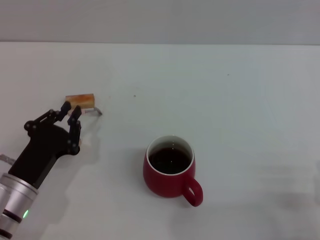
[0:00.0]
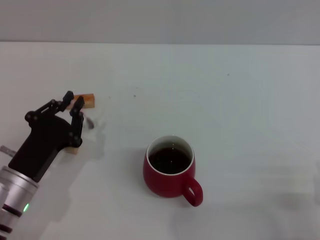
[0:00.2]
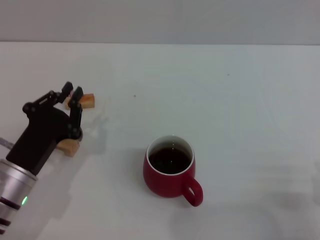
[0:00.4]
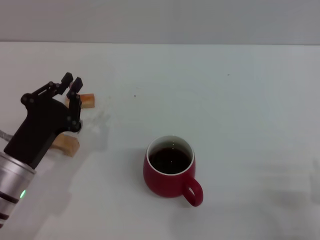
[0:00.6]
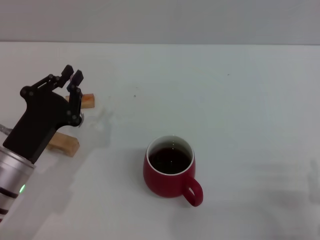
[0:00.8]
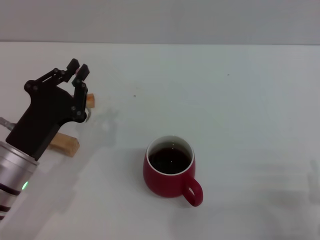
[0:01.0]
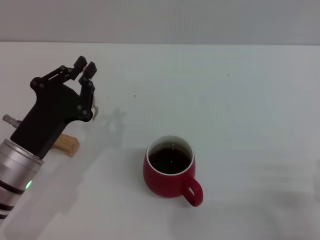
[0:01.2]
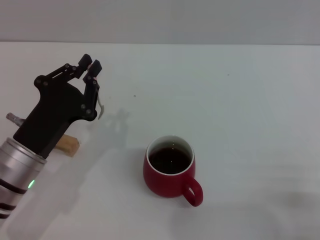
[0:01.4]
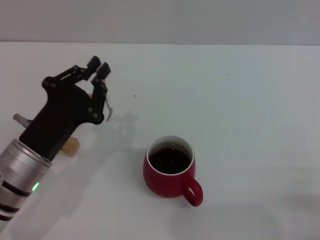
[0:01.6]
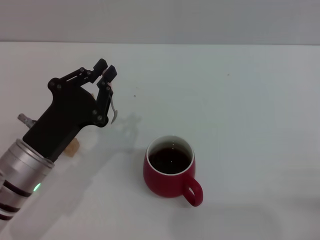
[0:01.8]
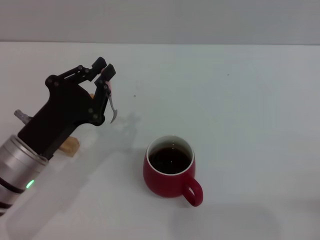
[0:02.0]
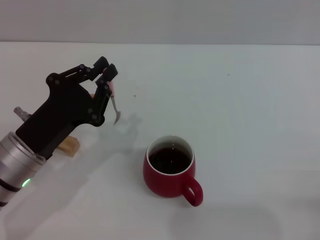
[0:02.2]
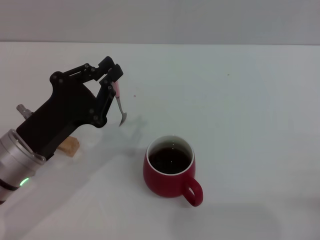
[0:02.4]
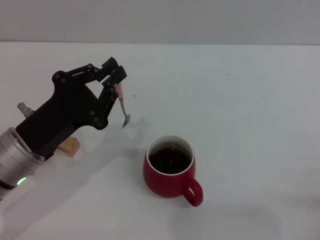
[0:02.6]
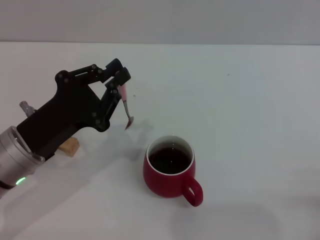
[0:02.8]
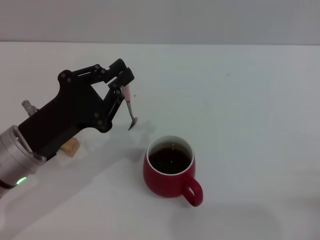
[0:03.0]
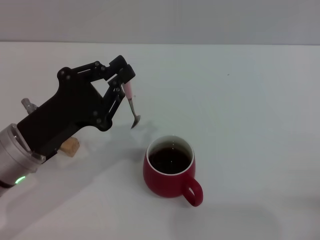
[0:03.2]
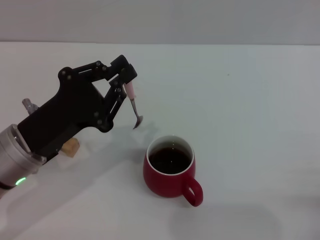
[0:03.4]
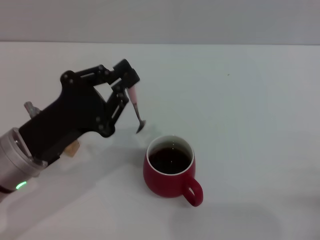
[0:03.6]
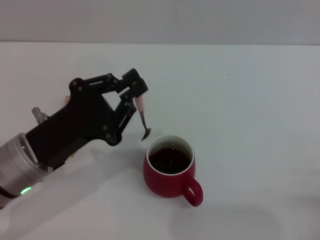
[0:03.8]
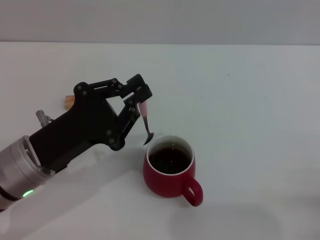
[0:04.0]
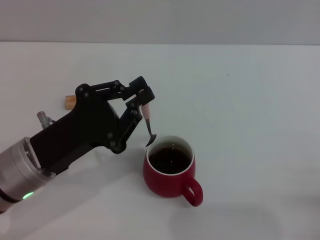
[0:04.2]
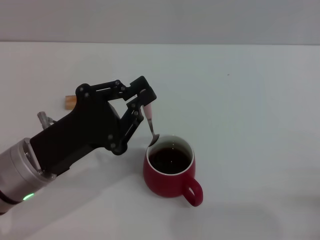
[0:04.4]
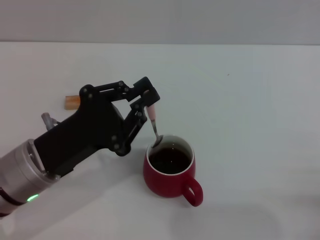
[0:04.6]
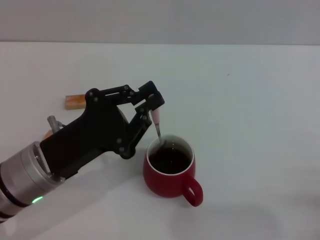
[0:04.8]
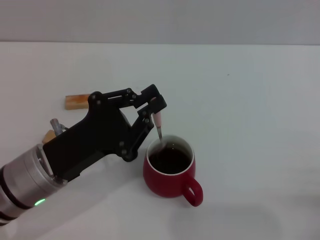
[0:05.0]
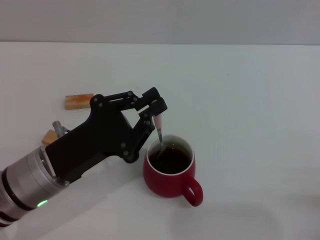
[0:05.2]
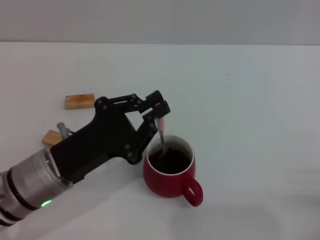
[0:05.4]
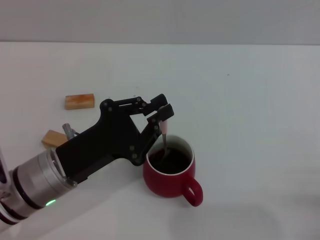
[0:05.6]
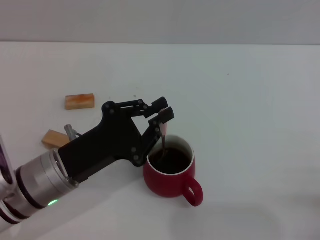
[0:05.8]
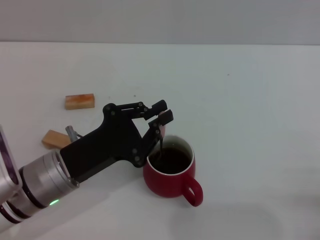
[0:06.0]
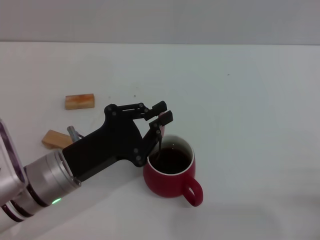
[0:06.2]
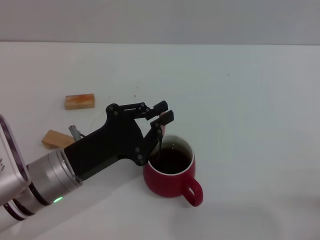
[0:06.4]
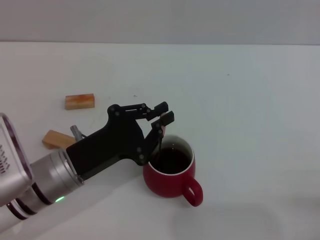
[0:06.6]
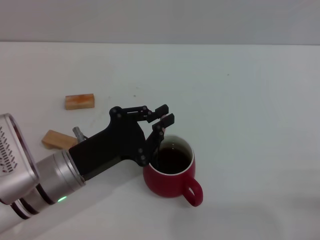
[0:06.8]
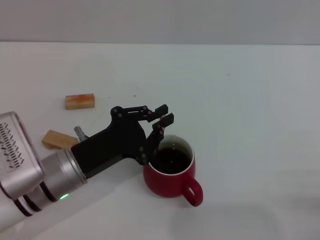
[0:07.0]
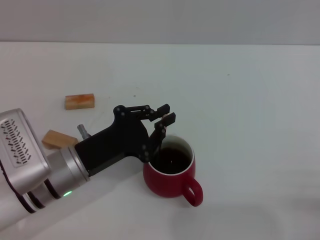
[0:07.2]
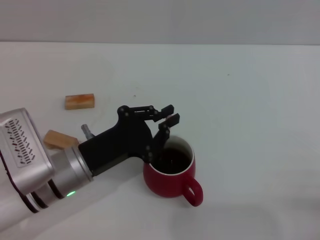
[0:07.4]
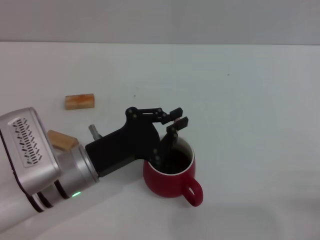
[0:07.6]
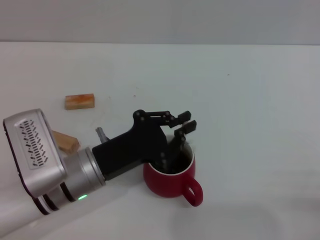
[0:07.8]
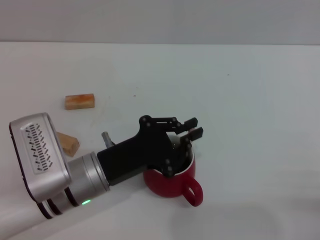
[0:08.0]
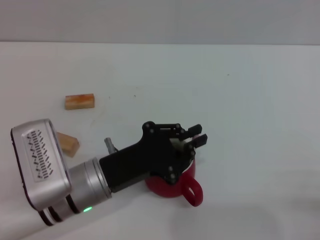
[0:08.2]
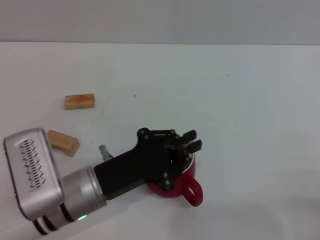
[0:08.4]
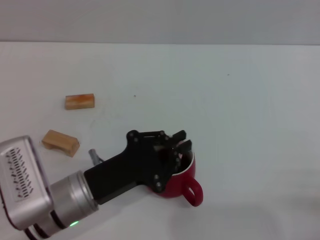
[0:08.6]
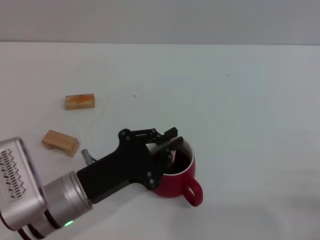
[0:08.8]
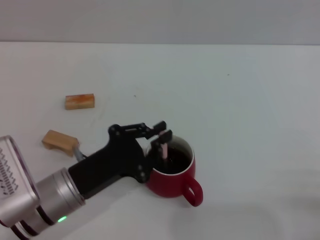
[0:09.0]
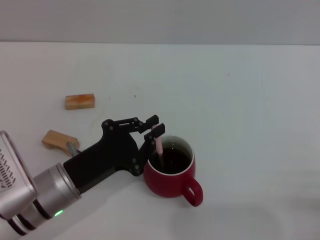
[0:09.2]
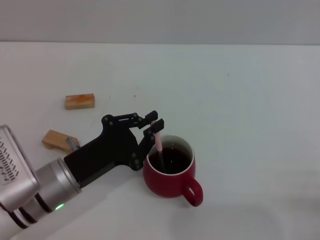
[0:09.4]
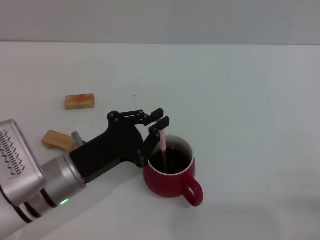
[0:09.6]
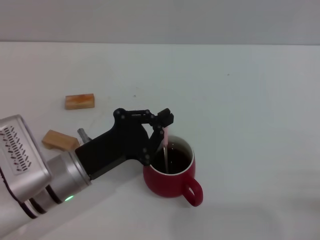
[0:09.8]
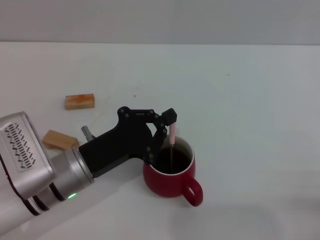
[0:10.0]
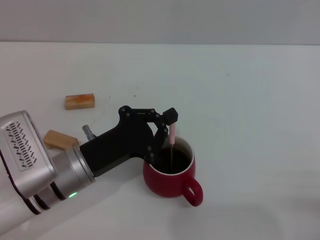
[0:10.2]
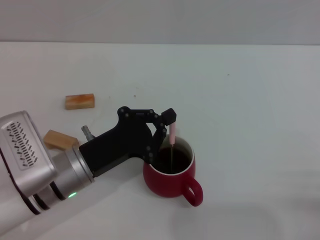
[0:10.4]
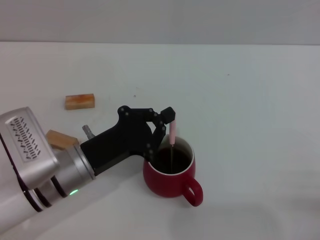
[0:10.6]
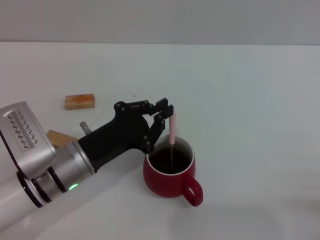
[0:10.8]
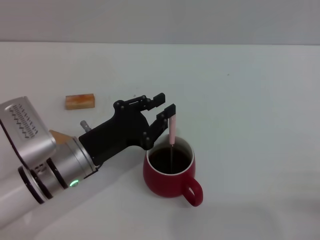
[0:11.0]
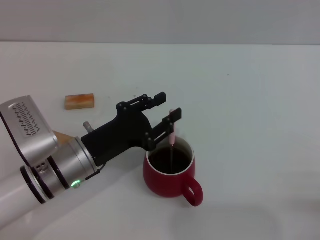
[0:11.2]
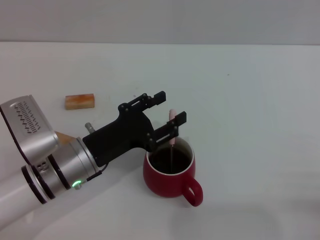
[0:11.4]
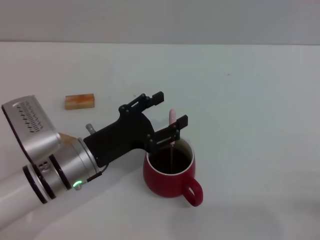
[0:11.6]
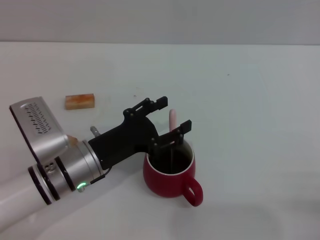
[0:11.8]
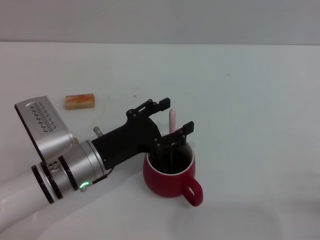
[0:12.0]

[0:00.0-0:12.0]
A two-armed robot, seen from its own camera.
Task of the whole recording: Move the red cup to the center, lift the pink spoon, stir it three times in the cup, and put the spoon into the cup.
0:00.0 to 0:01.6: The left gripper goes roughly 5 cm upward.
0:01.6 to 0:03.0: The grippers stay close to where they were, moving slightly.
0:03.0 to 0:06.0: The grippers make only small movements.
0:06.0 to 0:10.4: There are only small adjustments of the grippers.
0:10.4 to 0:12.0: The left gripper opens.

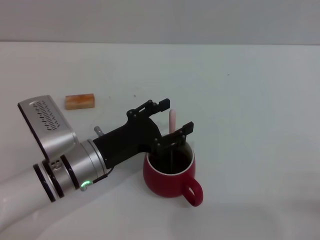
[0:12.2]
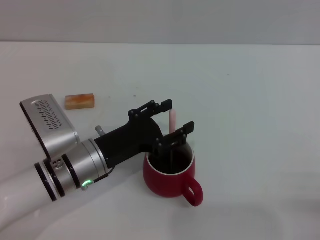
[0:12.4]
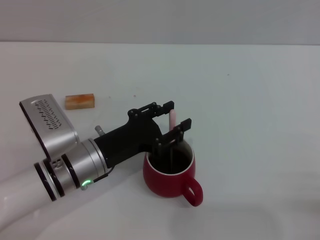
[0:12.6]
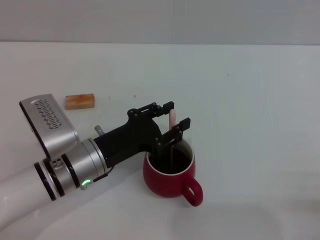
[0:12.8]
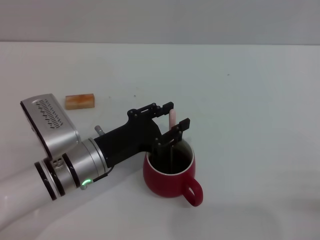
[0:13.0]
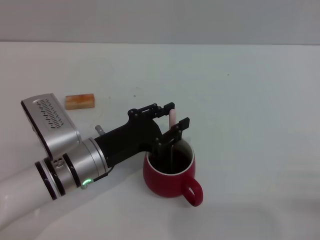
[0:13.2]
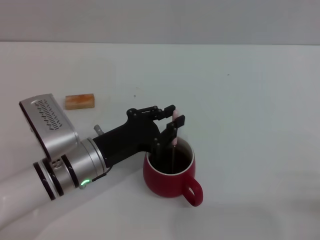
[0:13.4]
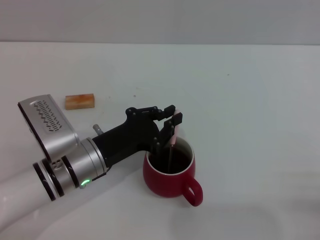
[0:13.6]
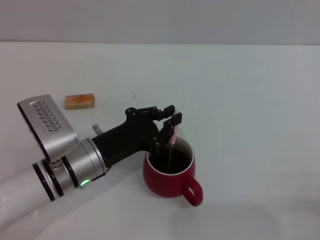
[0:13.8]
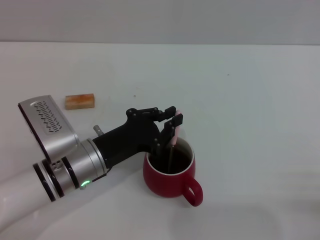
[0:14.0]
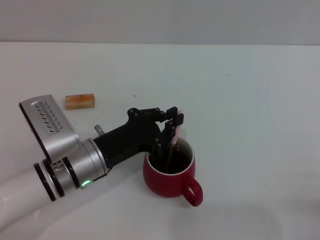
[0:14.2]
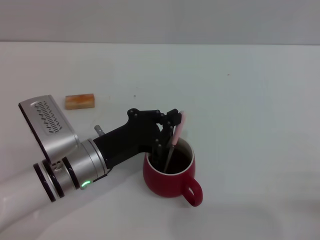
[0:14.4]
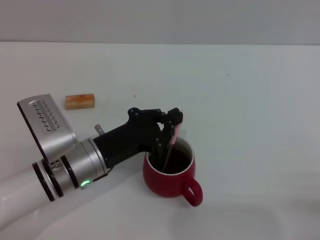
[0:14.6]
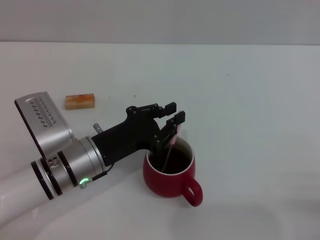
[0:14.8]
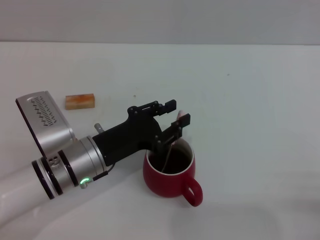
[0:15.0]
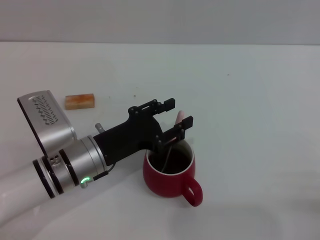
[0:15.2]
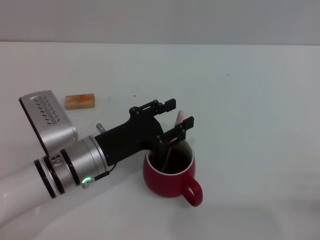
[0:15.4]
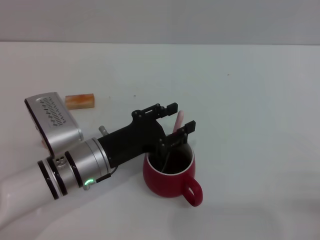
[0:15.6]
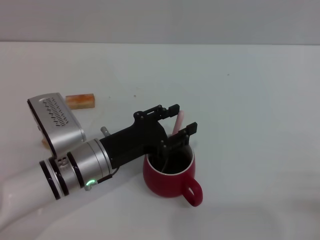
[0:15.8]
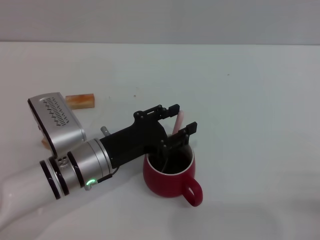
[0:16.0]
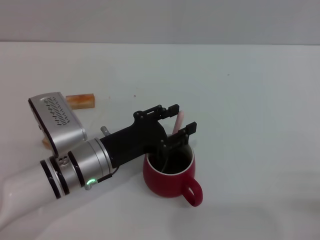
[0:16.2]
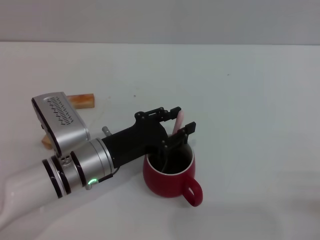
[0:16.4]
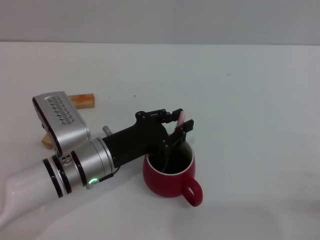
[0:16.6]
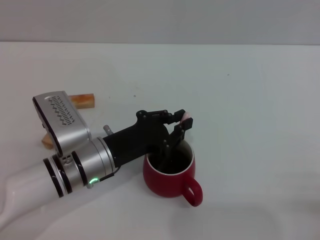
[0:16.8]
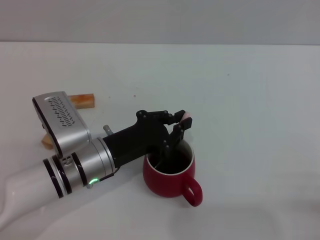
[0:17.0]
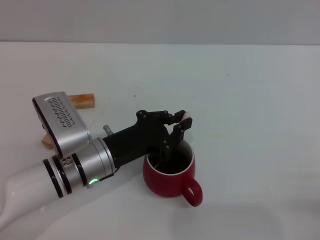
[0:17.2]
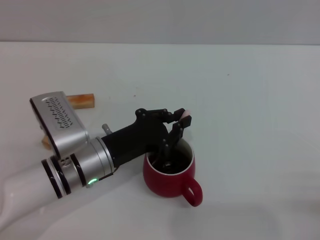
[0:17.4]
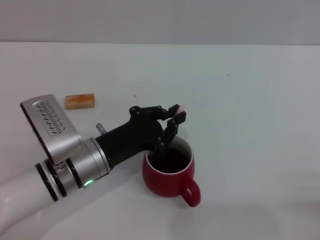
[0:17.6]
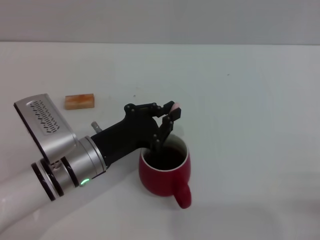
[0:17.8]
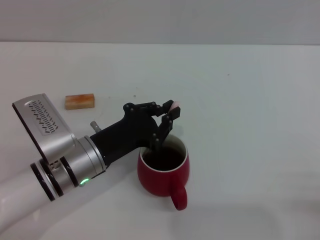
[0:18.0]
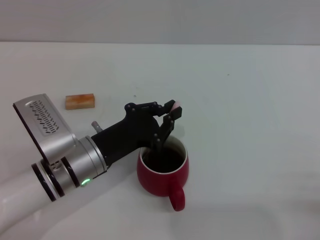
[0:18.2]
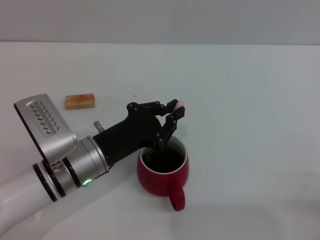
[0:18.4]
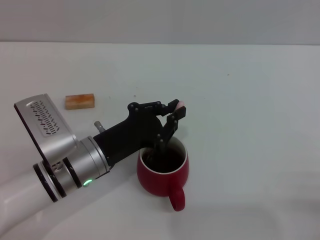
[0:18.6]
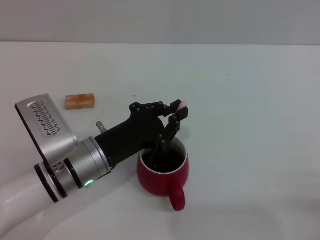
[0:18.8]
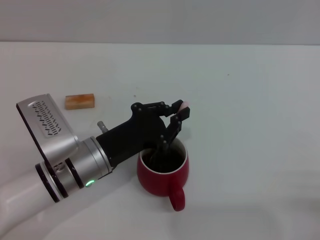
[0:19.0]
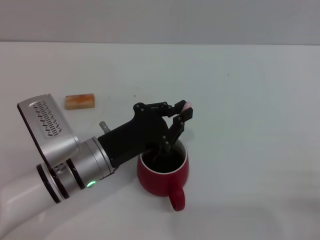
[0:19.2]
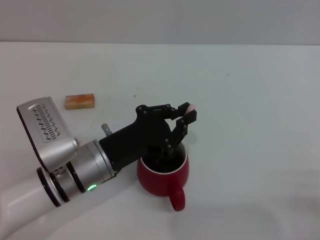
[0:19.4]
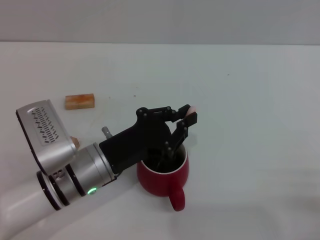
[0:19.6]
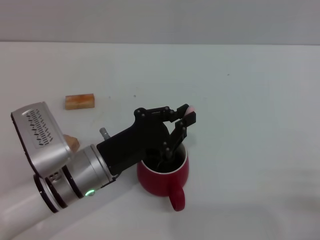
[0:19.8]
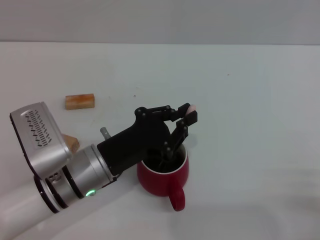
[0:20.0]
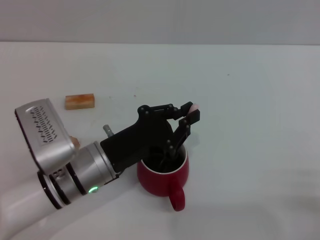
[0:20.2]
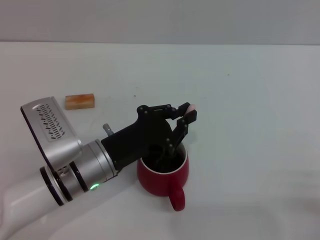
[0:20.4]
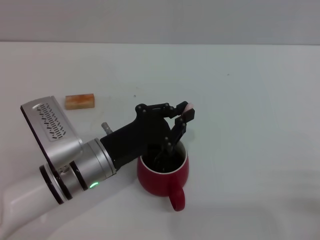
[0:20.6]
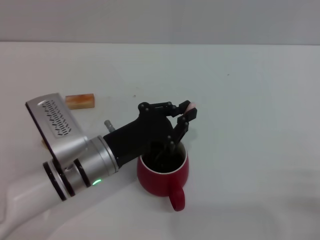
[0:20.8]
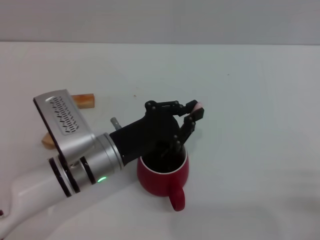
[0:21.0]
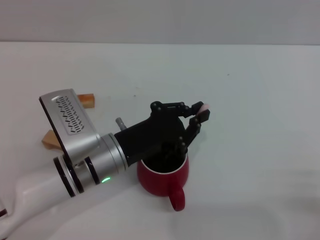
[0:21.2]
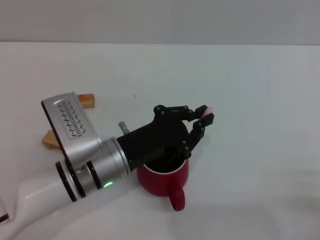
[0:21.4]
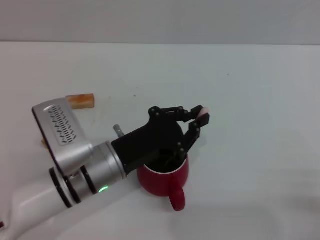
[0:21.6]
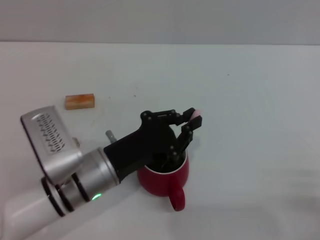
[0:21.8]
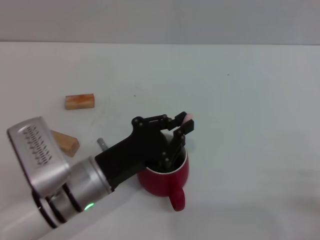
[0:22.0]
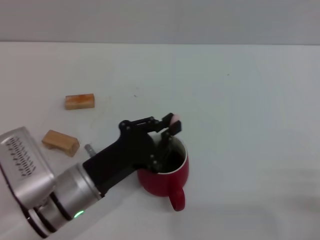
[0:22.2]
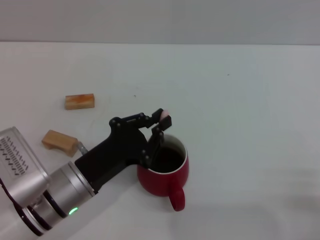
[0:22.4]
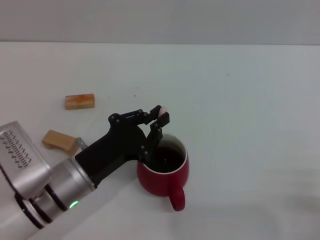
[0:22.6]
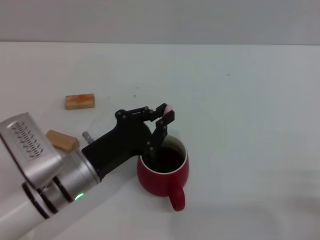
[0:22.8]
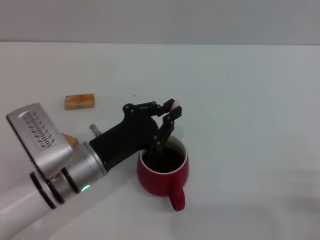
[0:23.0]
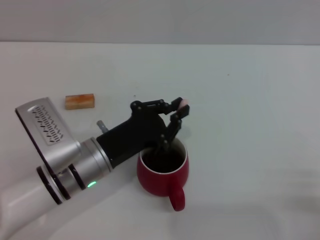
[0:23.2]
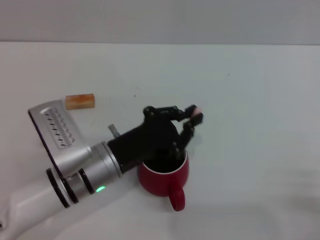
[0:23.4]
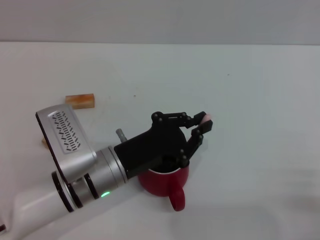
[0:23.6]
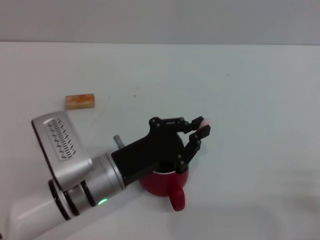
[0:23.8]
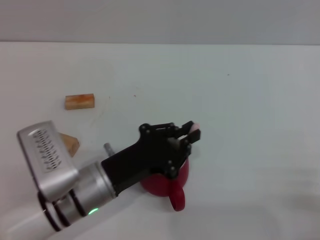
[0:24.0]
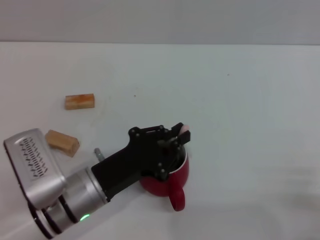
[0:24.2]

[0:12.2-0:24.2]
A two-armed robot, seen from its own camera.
Task of the whole recording: Move the red cup to the center, lift the pink spoon, stir it three times in the cup, and put the spoon into the cup.
0:12.2 to 0:13.8: The left gripper closes.
0:13.8 to 0:15.2: The left gripper opens up.
0:15.2 to 0:16.6: Both grippers stay about where they are.
0:16.6 to 0:18.2: The left gripper closes its fingers.
0:18.2 to 0:21.2: The grippers move only a little.
0:21.2 to 0:22.6: The left gripper changes place by roughly 5 cm.
0:22.6 to 0:24.2: The grippers move only a little.
